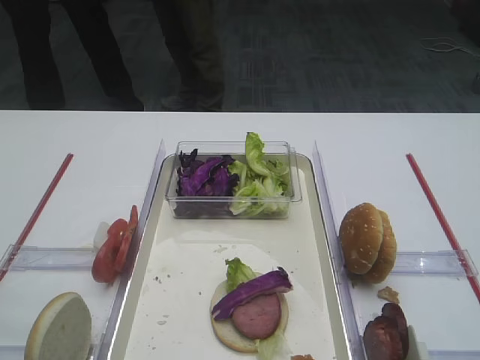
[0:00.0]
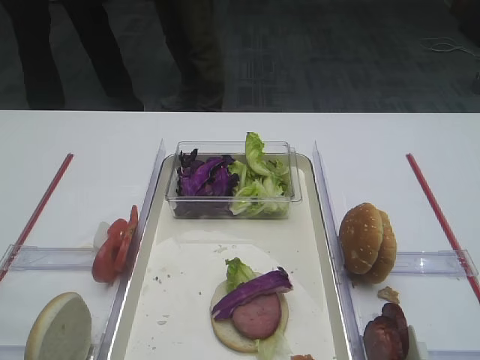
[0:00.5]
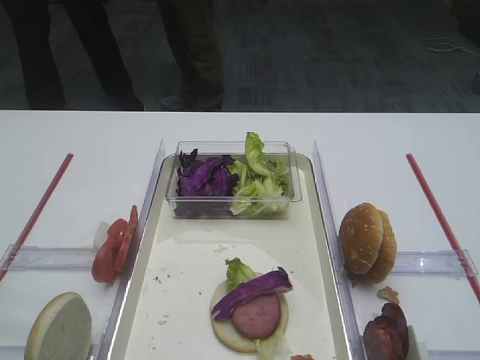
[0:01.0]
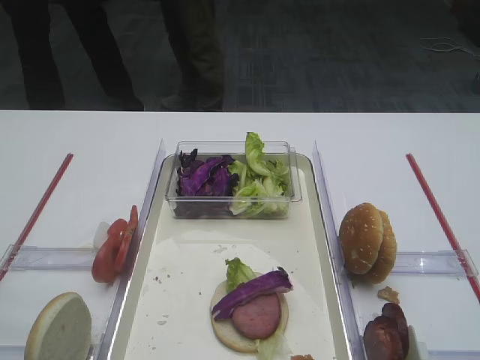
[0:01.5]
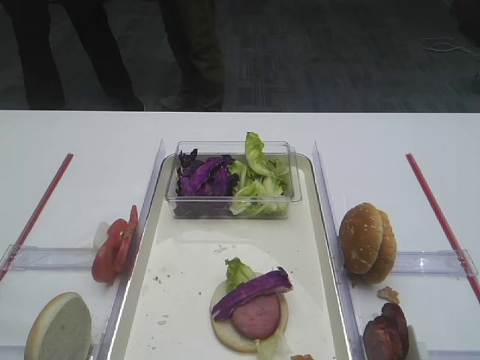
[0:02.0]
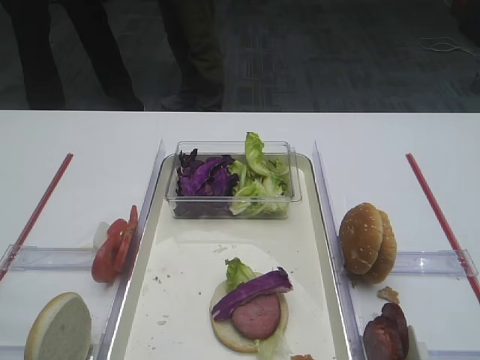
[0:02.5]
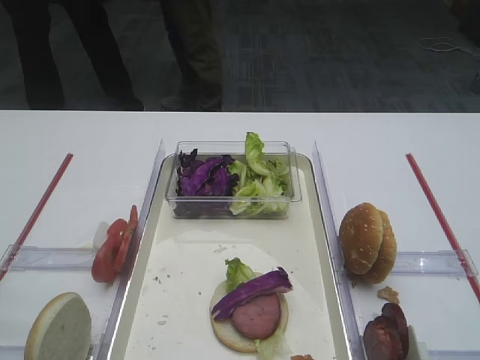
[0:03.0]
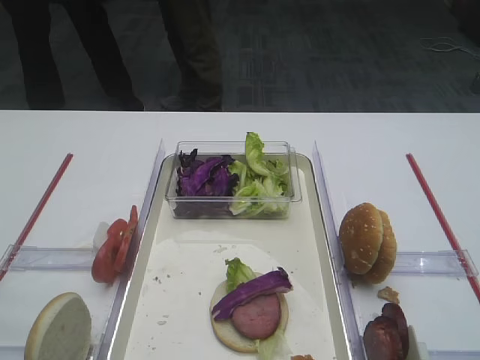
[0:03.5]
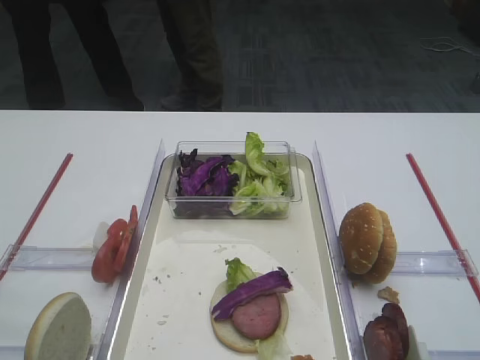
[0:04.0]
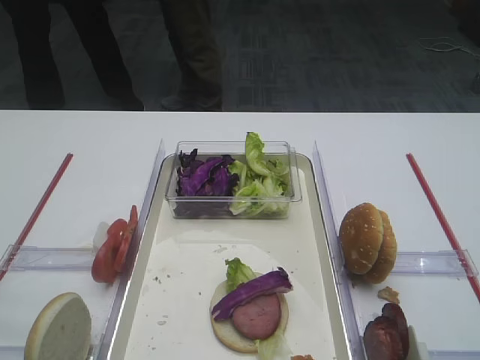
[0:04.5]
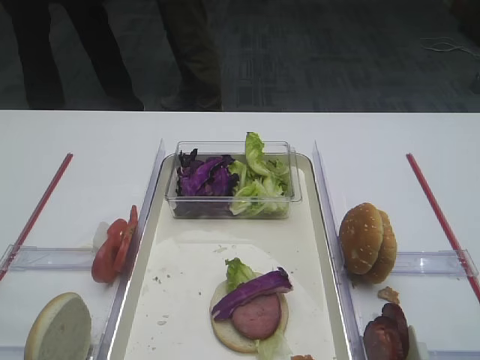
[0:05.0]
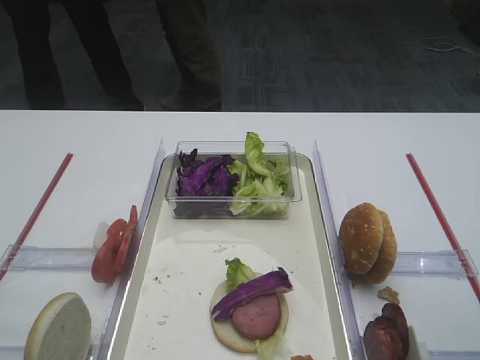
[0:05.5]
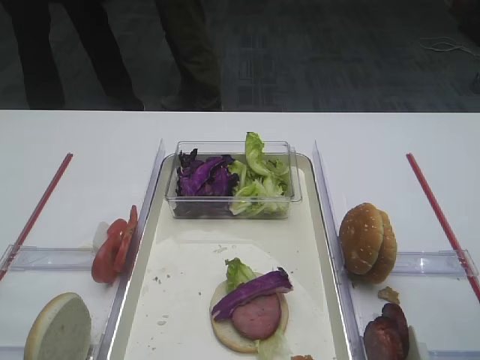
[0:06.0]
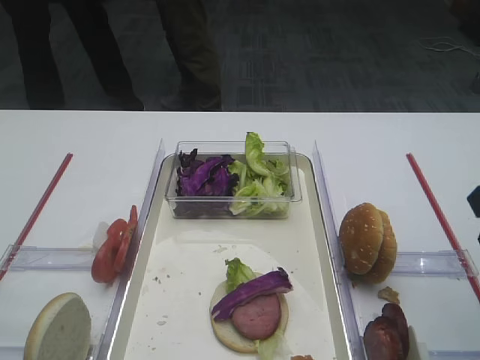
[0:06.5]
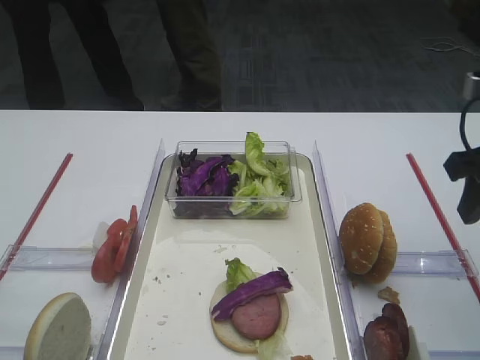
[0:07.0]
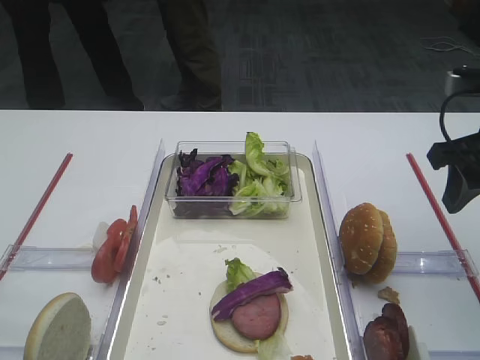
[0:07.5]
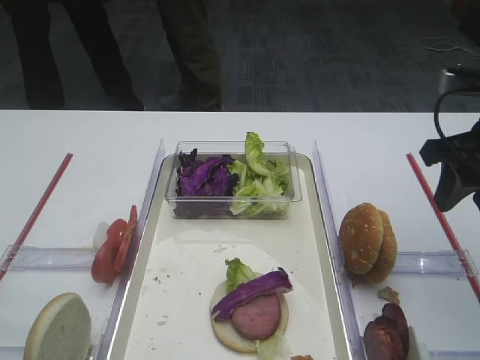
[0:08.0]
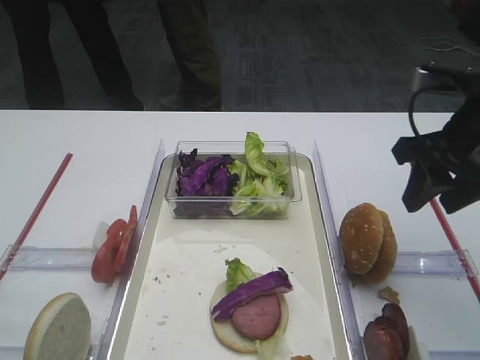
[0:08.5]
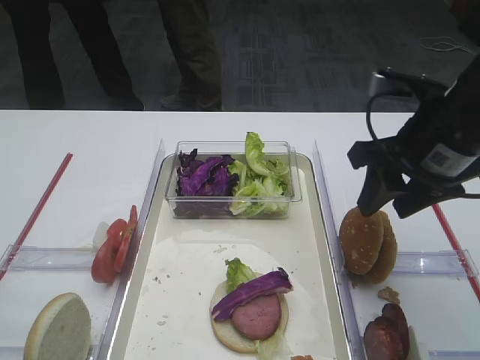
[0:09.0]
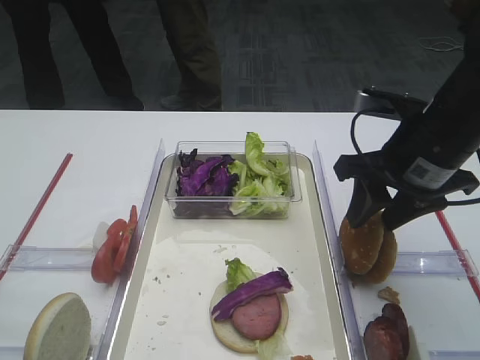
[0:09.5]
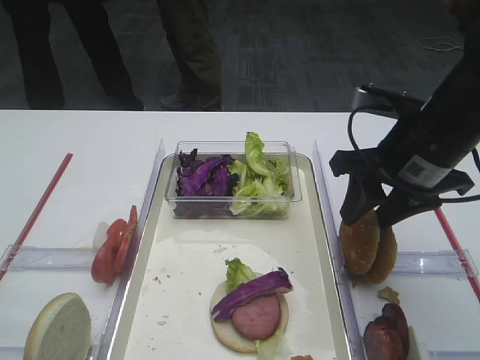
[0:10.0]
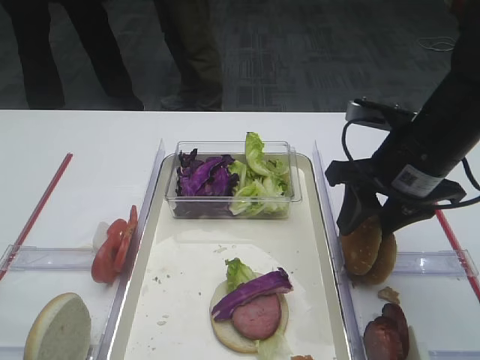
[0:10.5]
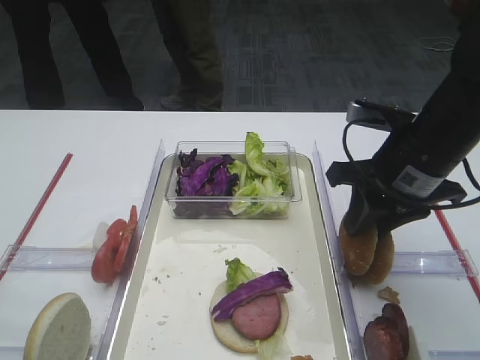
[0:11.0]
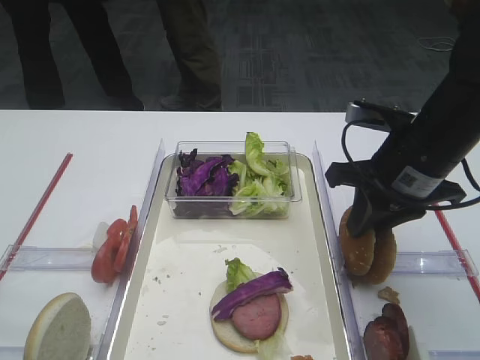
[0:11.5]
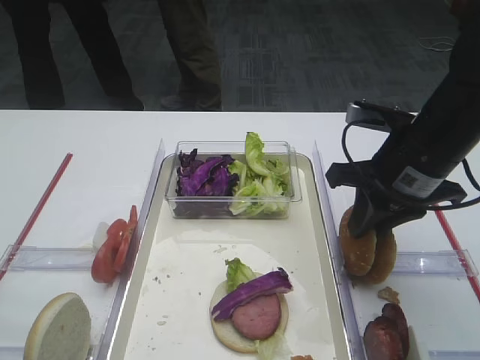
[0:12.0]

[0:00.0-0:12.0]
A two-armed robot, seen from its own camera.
6.0 to 8.0 s: The right gripper heads forward, covering about 10 cm.
8.0 to 10.0 s: The right gripper heads to the left, covering approximately 10 cm.
10.0 to 12.0 s: The right gripper closes.

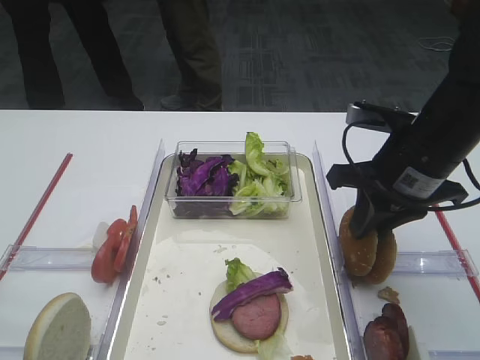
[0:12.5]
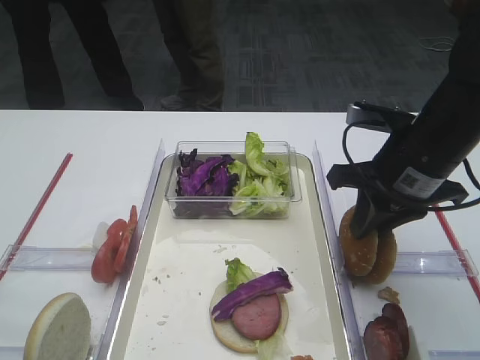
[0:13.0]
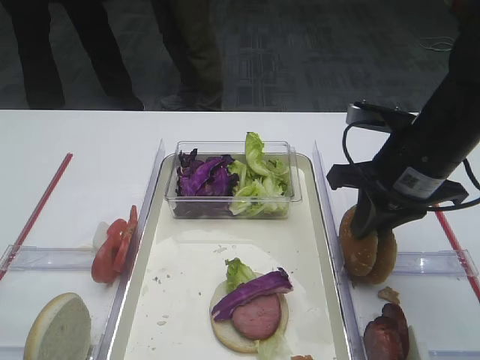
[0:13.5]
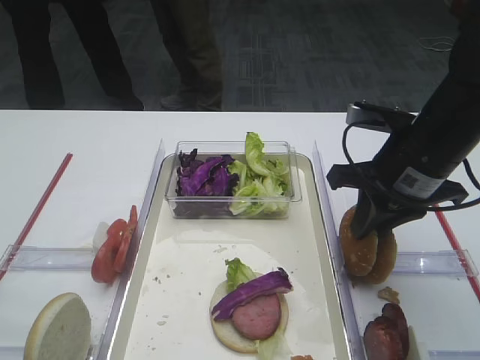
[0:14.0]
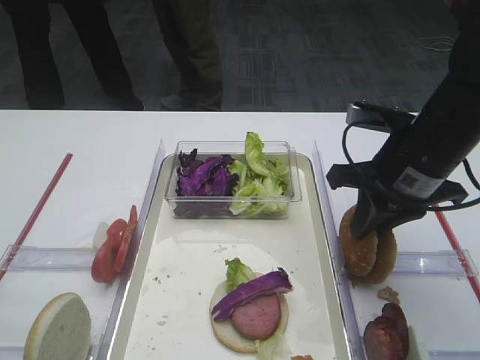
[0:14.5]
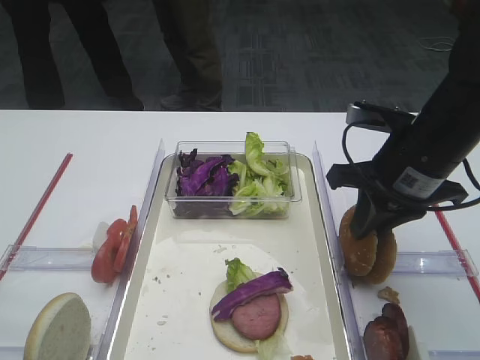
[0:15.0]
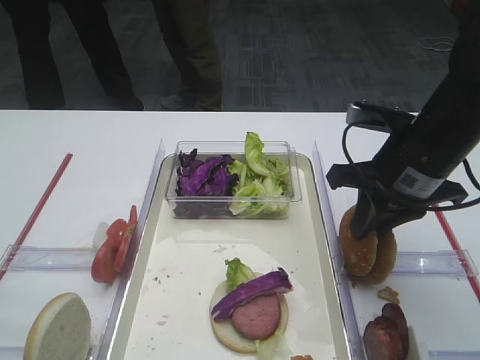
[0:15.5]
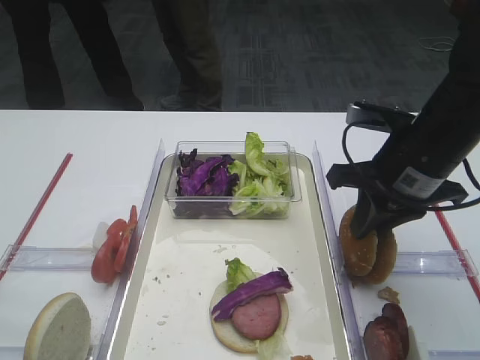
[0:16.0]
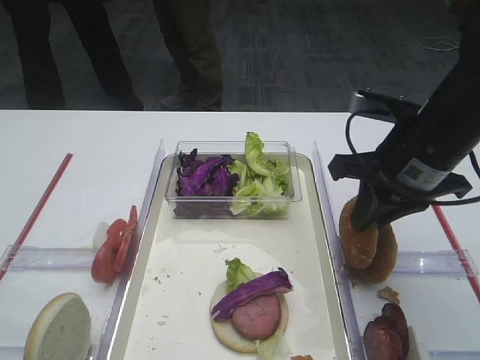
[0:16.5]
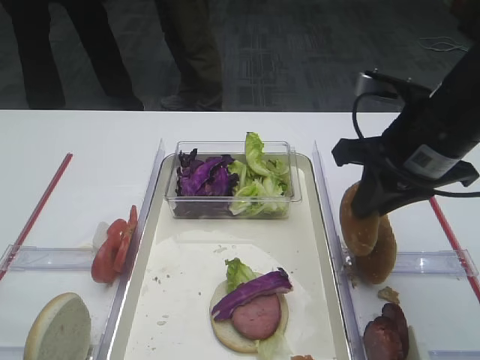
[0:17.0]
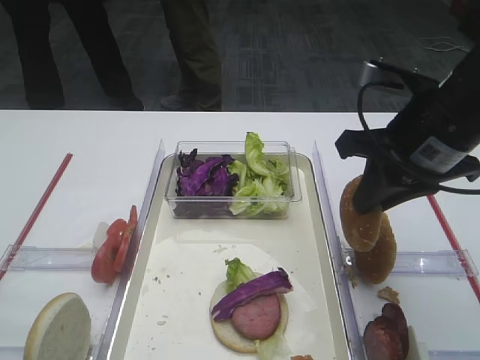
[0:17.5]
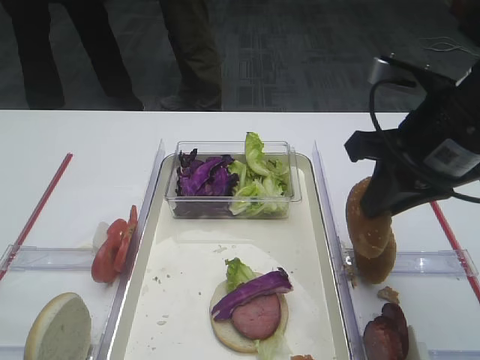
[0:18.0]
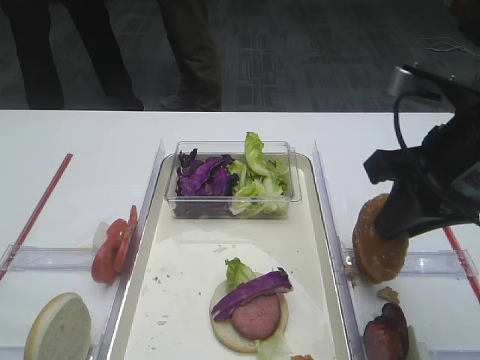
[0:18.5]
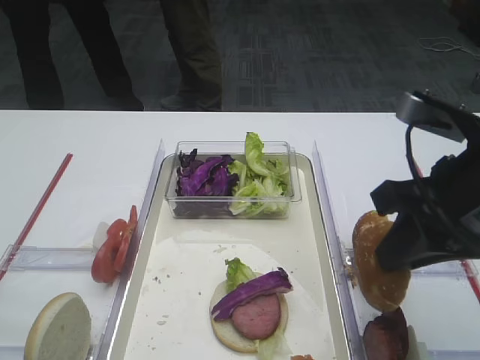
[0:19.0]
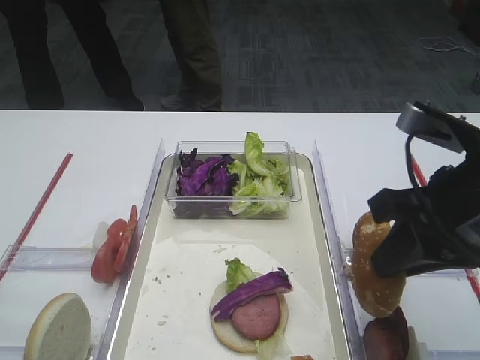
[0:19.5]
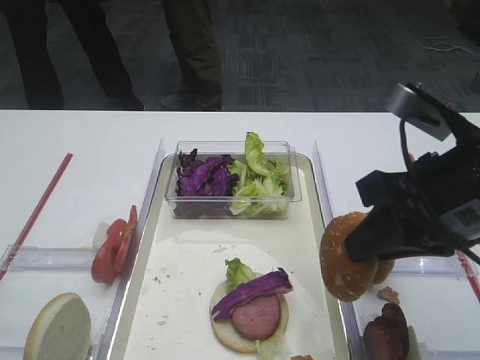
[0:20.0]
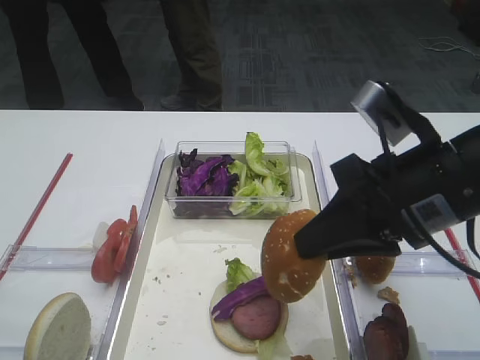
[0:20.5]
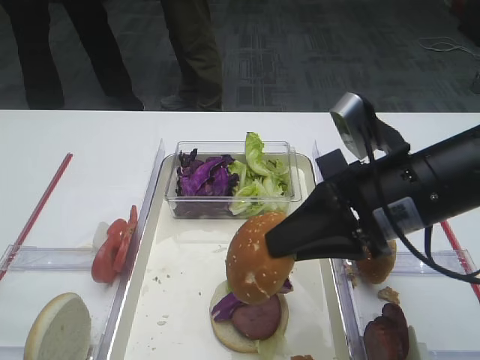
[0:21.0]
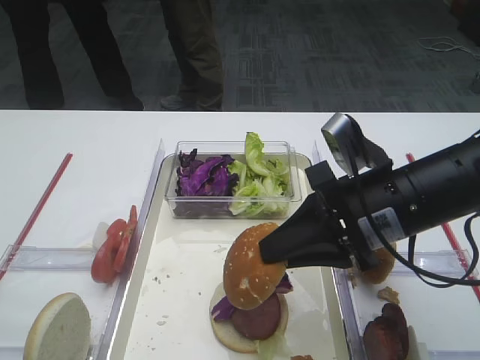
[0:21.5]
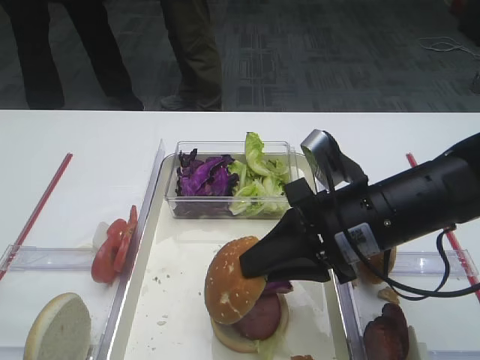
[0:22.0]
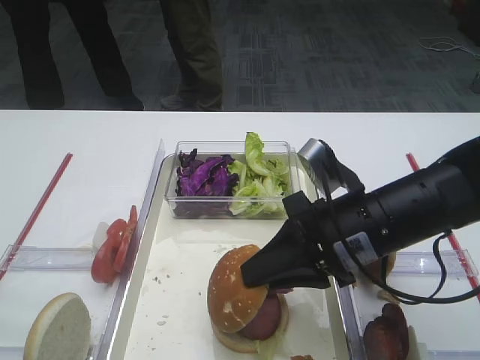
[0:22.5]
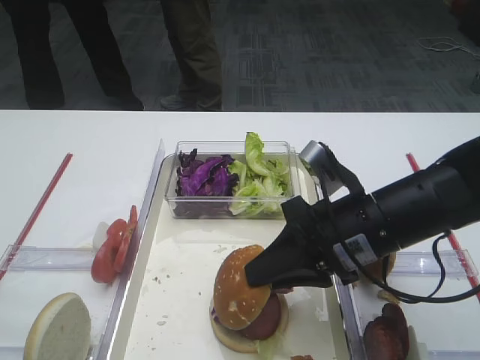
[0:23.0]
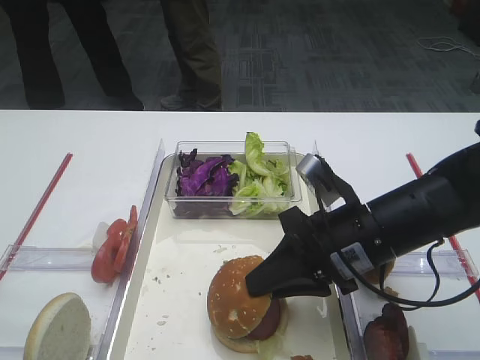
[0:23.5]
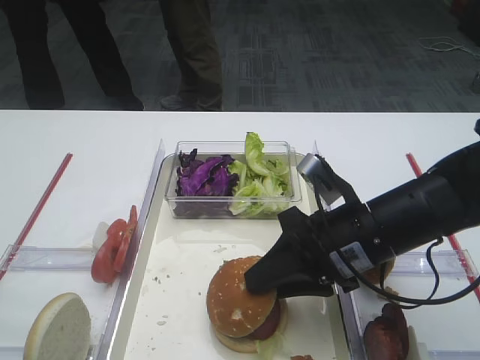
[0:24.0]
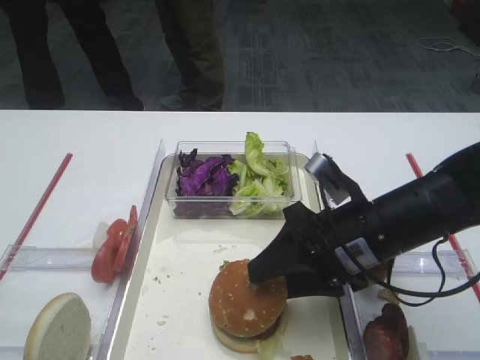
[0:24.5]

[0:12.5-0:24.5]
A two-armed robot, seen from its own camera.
Step, 12.5 to 17.5 s: Pick up the hamburger lid with the right gripper.
12.5 to 16.5 s: The two grippers keep their place.
16.5 to 18.5 s: The right gripper heads backward, covering roughly 5 cm.
20.5 to 22.5 s: The right gripper heads downward, covering approximately 10 cm.
22.5 to 24.5 s: The right gripper opens up.

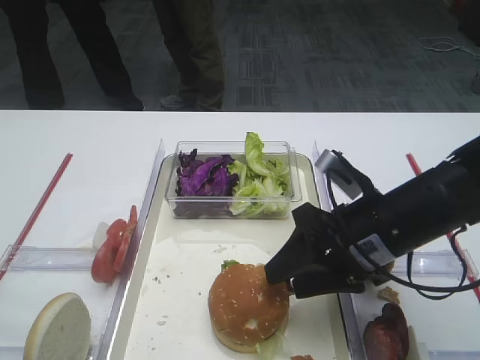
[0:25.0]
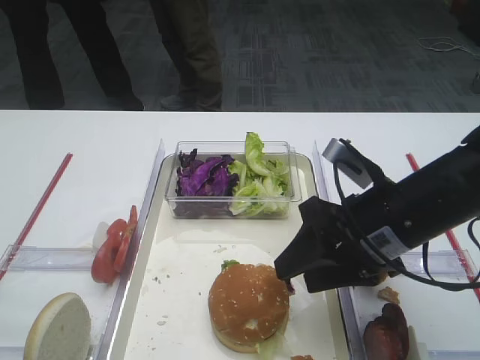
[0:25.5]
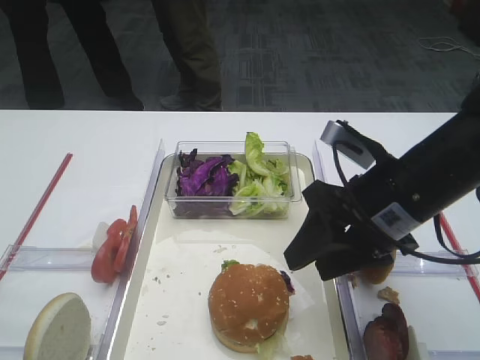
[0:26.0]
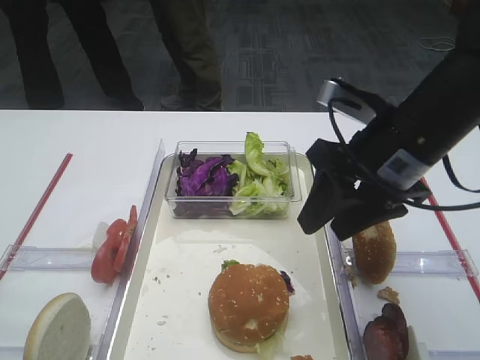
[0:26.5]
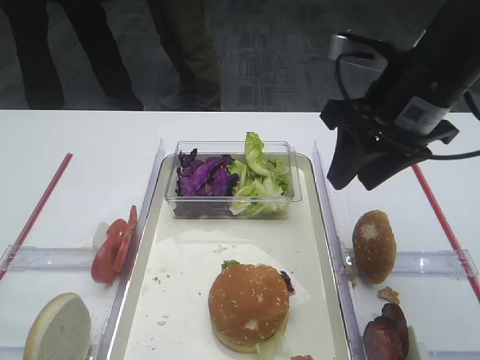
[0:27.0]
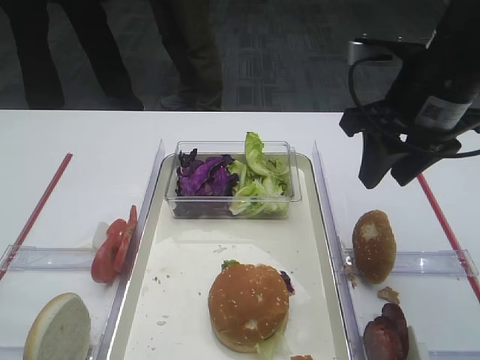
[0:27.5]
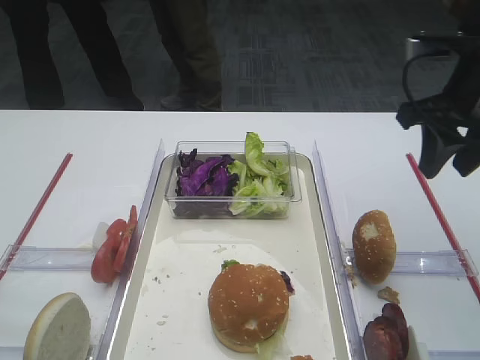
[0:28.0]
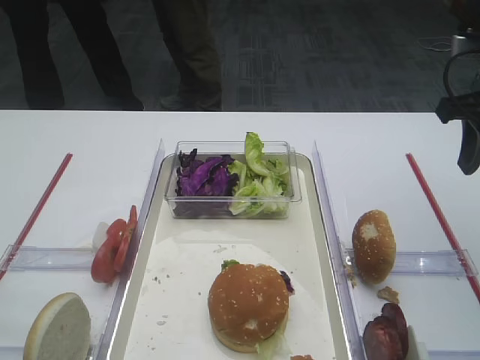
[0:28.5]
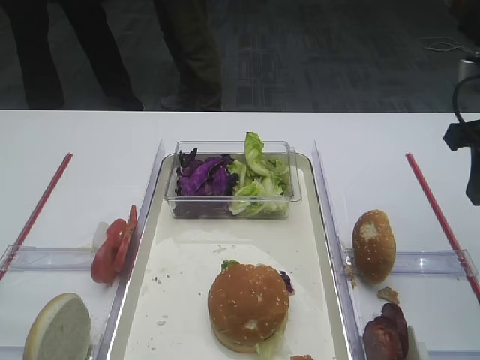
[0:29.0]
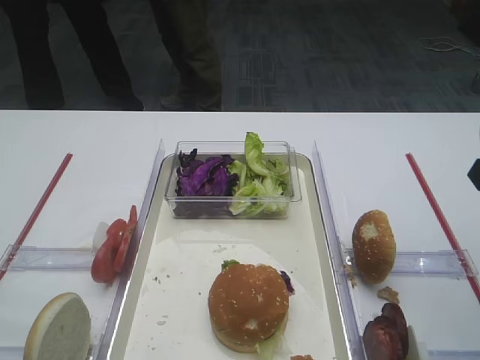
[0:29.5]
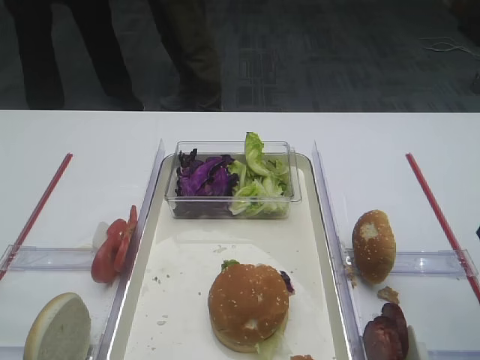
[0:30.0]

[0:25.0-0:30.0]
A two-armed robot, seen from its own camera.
25.0 to 27.5 s: The right gripper goes roughly 15 cm upward and forward.
27.5 to 30.0 s: The right gripper travels backward and to the right by roughly 15 cm.
